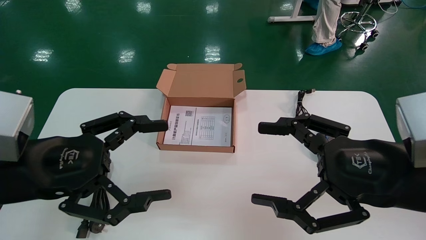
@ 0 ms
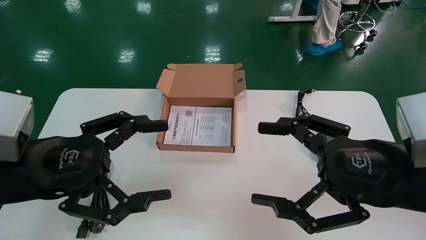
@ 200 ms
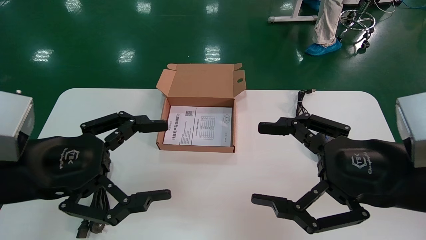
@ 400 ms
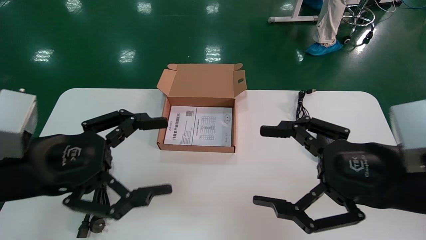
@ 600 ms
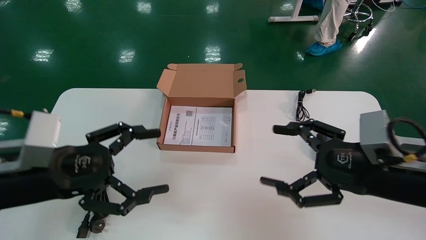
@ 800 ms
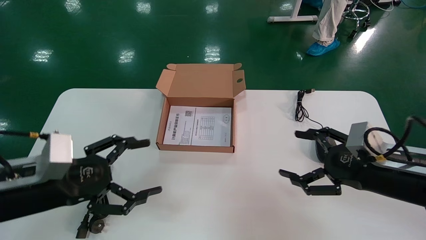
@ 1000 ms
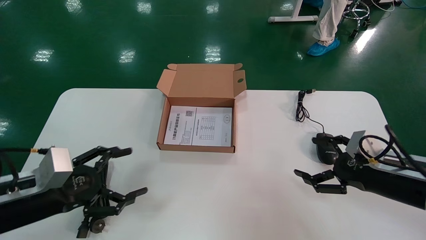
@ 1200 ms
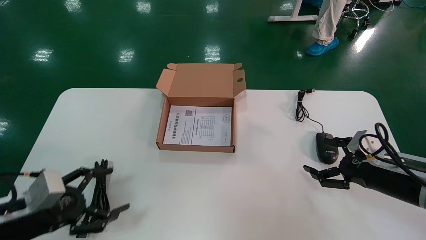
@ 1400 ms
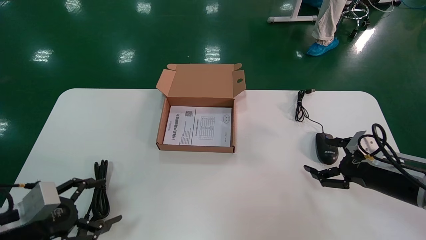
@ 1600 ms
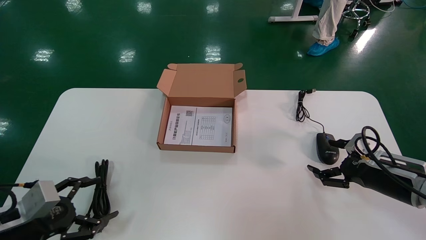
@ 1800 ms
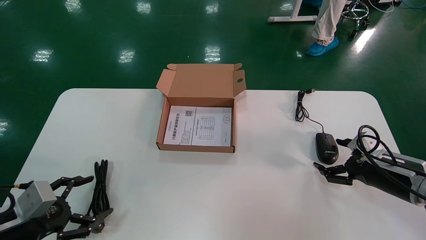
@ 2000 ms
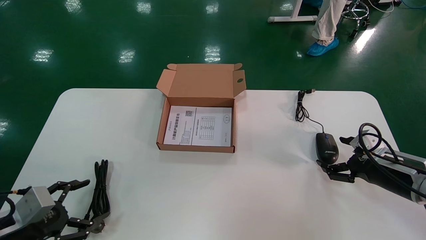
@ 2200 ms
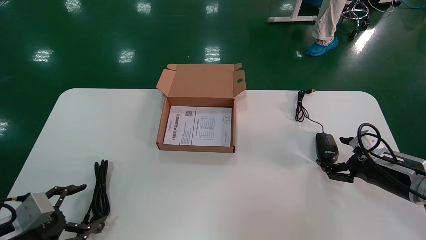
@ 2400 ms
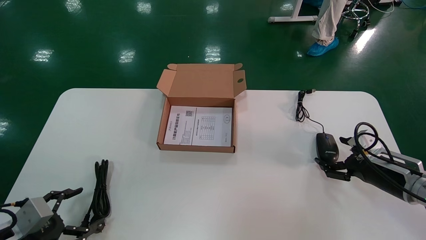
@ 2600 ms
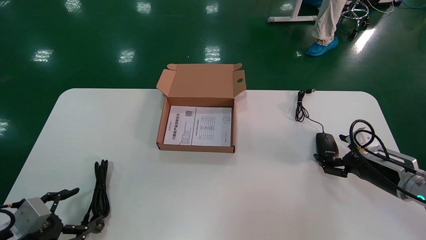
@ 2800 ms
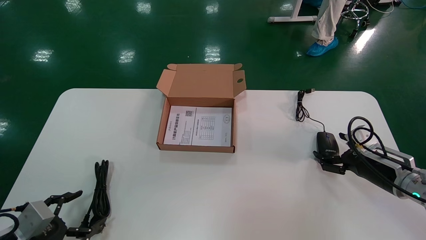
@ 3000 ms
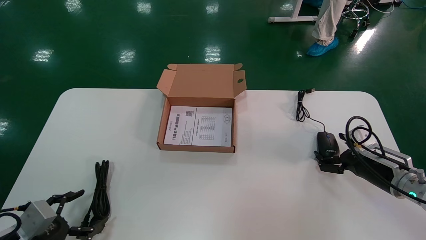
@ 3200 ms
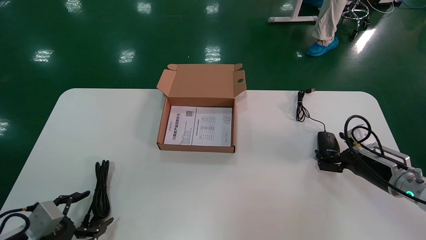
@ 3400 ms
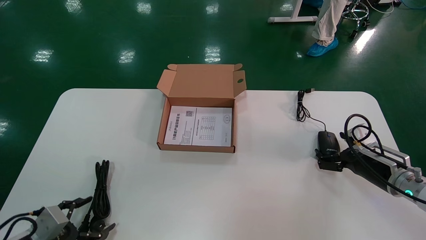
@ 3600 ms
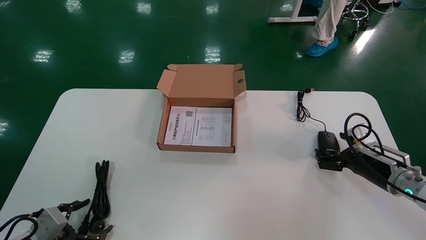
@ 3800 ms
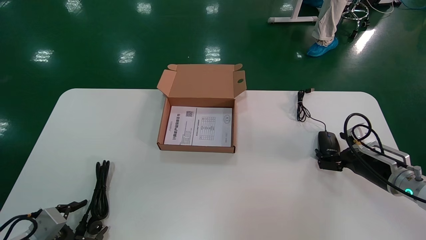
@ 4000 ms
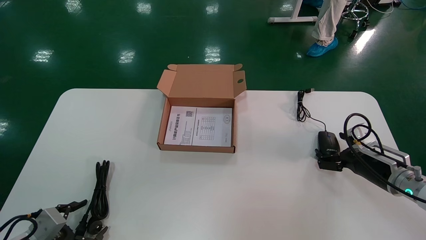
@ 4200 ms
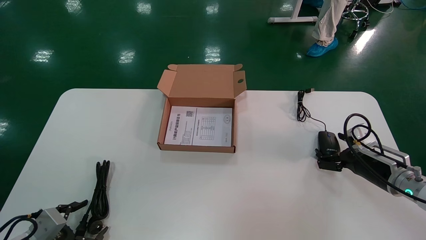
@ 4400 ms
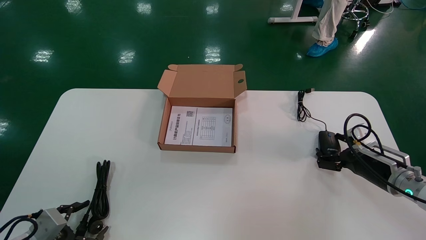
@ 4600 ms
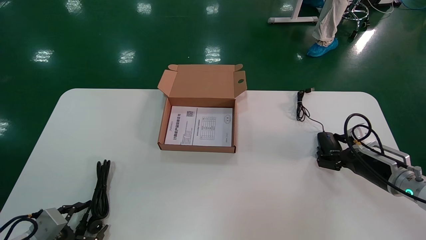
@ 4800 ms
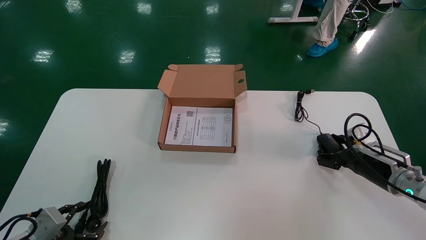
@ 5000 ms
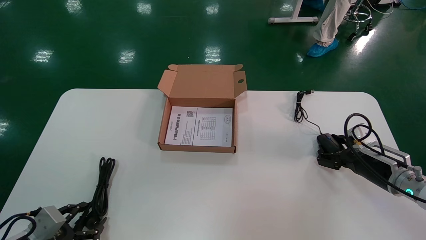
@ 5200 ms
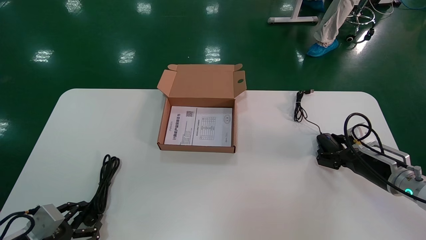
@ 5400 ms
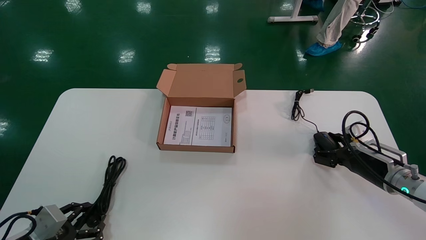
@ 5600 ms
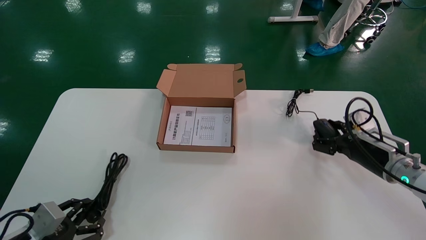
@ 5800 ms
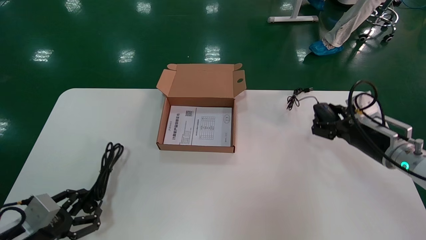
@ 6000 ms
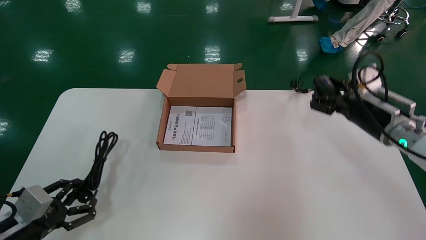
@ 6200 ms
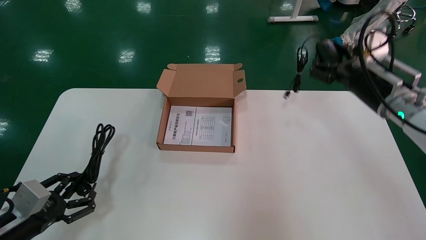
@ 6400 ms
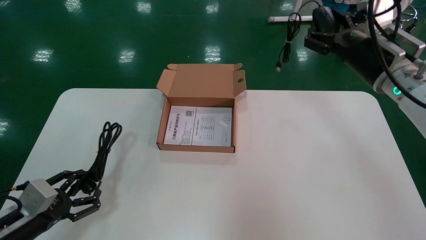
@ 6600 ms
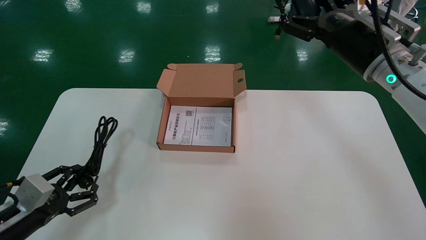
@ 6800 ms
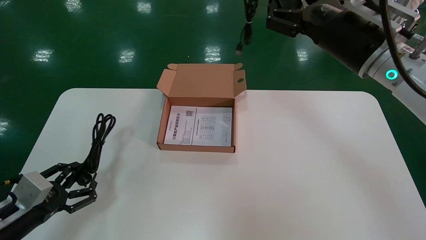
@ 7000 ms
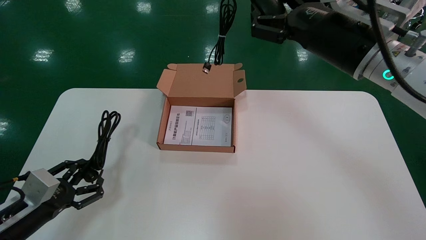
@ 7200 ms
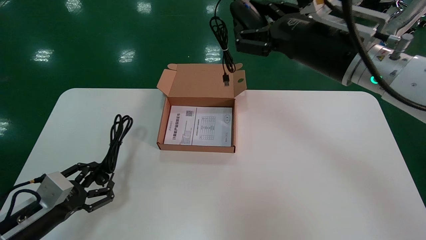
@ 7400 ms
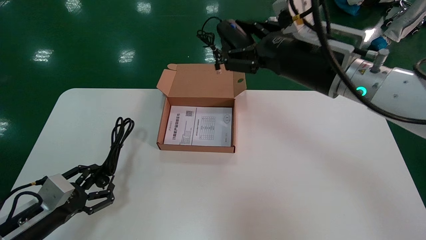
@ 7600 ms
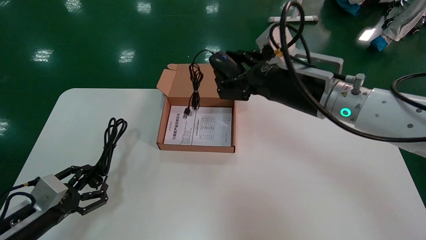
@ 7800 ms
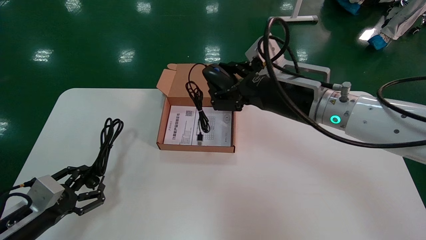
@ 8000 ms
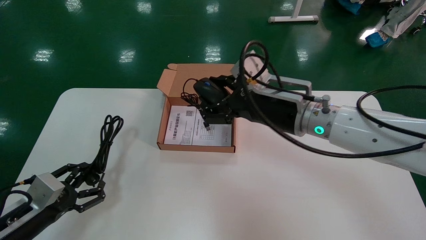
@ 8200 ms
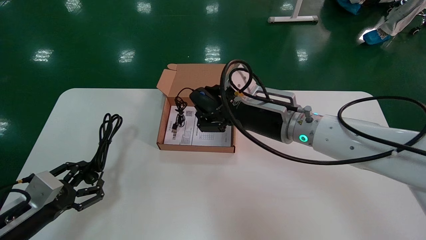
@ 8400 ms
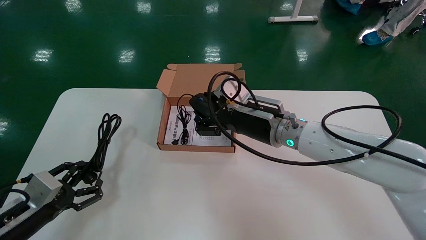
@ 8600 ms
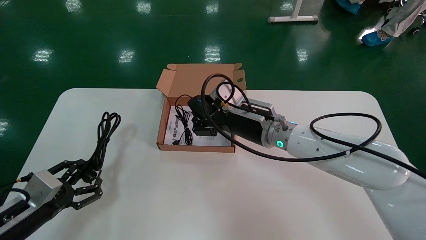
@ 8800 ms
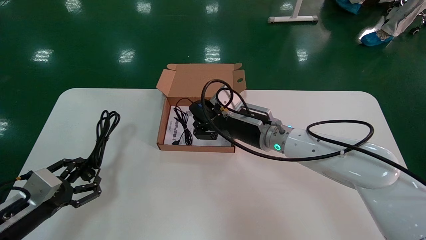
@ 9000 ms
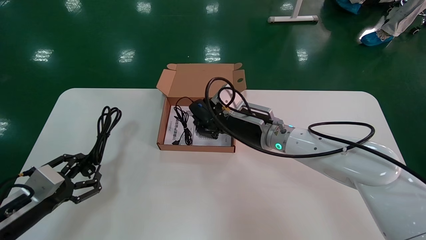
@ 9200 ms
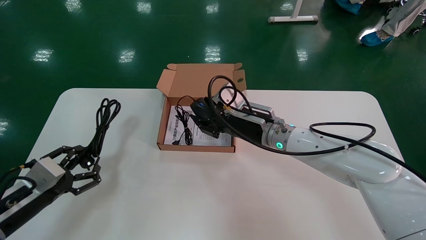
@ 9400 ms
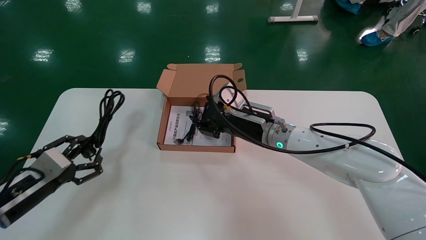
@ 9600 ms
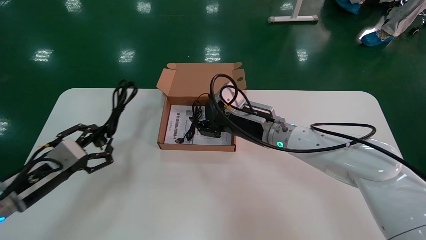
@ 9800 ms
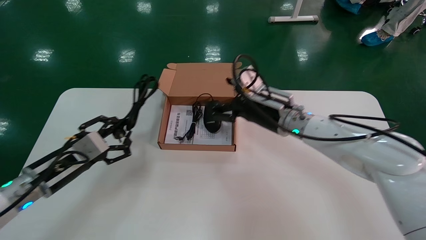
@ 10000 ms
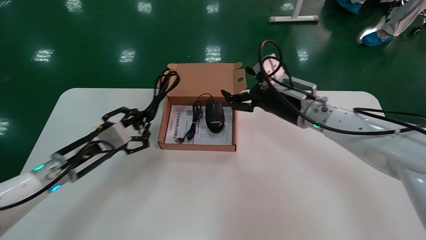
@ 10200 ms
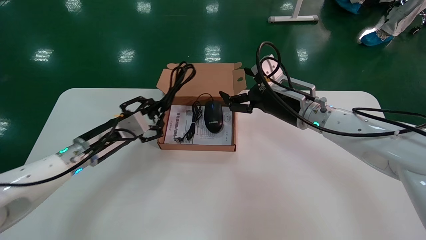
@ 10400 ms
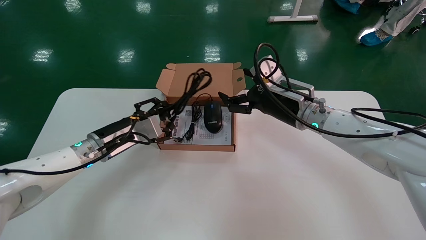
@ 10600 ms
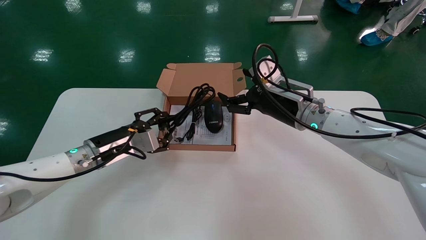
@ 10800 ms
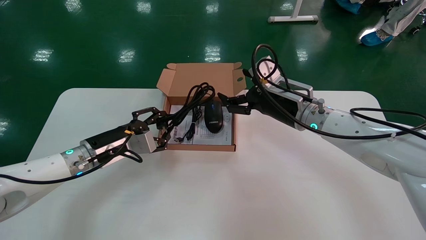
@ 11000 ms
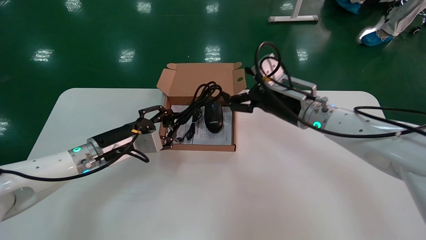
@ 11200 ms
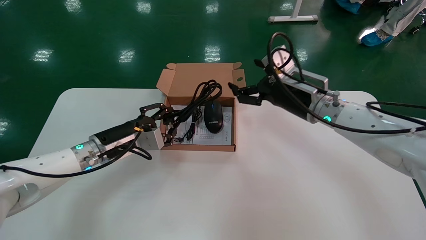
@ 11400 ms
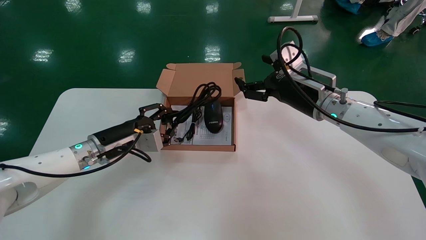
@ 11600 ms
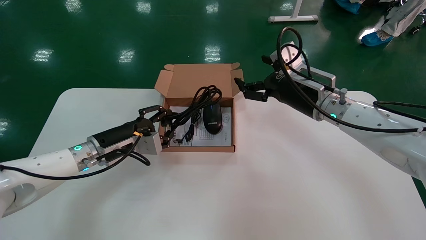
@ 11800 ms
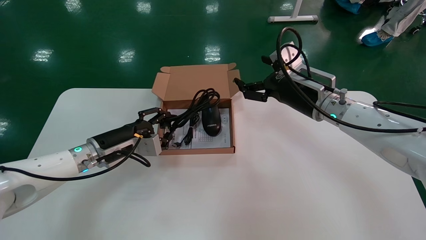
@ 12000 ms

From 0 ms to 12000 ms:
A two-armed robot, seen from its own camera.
Step, from 1000 ms to 5600 ms: Grab and pick up the mouse and power cord from the accessory packaging area.
From 0 ms to 1600 ms: The left gripper shifts approximately 20 cm downward and to the left, while the right gripper goes approximately 20 cm forward, downward and to the right.
From 1600 ms to 3000 ms: The left gripper goes some 5 cm downward.
From 3000 ms to 4400 ms: The grippers move only a little.
From 4400 ms to 6000 ms: The left gripper closes its fingers. Meanwhile the right gripper shifts some 10 cm upward, and closes up.
From 6000 ms to 7600 ms: The right gripper shifts approximately 25 cm to the left and upward.
From 7600 ms to 9000 ms: The right gripper heads downward, to the left and forward, covering about 15 cm.
From 9000 ms to 10400 ms: The right gripper travels to the right by some 5 cm, and opens, while the left gripper heads forward, to the right and upward, covering about 20 cm.

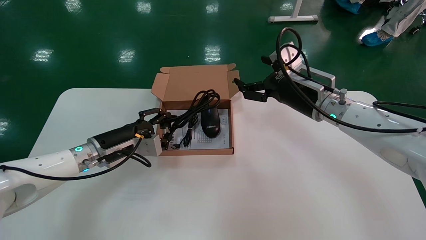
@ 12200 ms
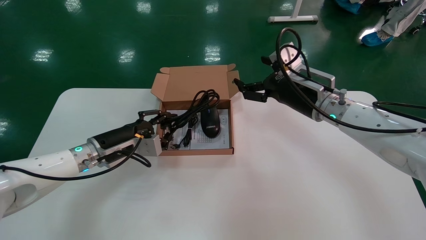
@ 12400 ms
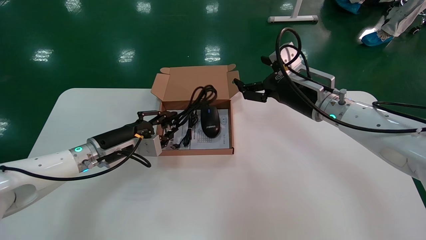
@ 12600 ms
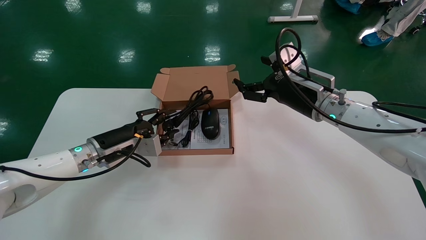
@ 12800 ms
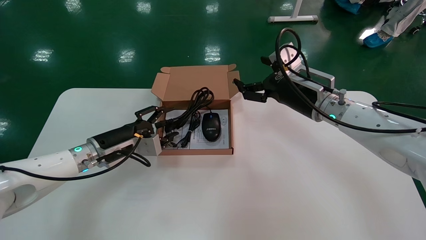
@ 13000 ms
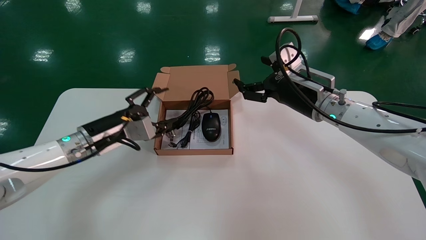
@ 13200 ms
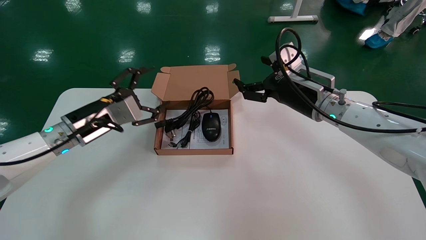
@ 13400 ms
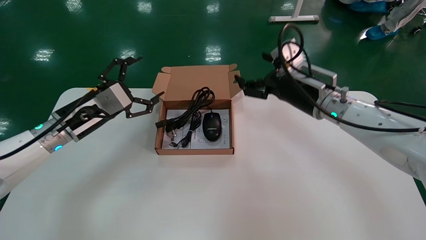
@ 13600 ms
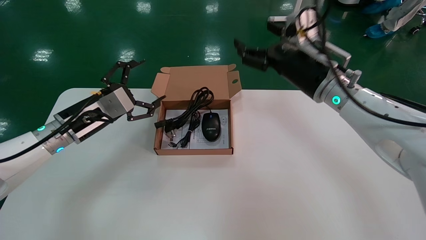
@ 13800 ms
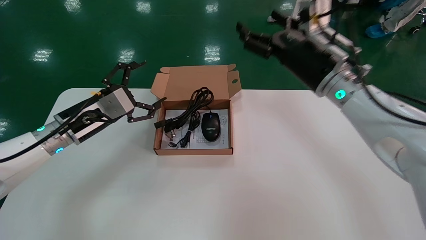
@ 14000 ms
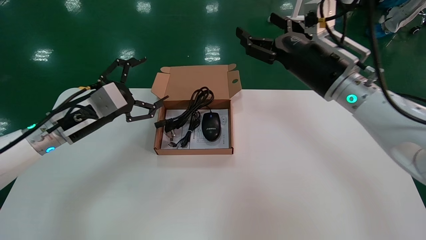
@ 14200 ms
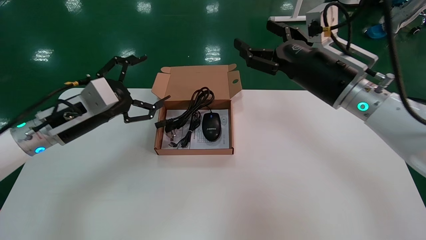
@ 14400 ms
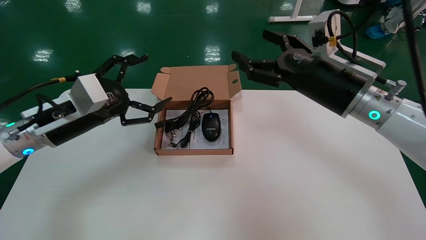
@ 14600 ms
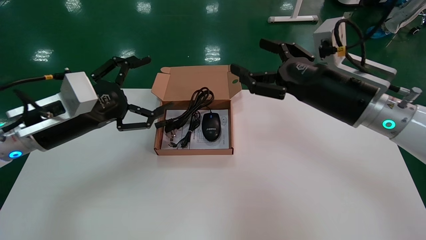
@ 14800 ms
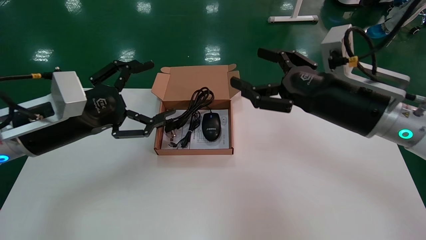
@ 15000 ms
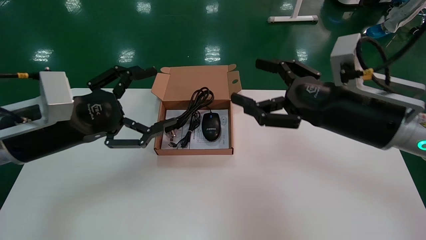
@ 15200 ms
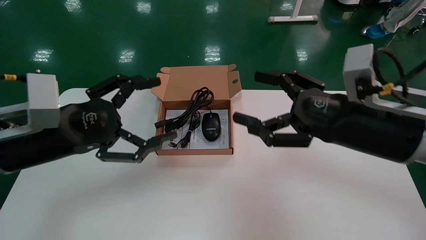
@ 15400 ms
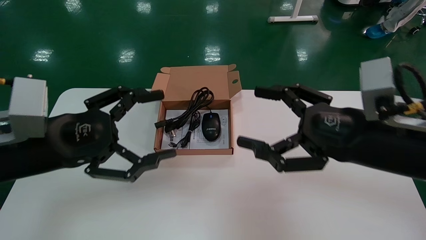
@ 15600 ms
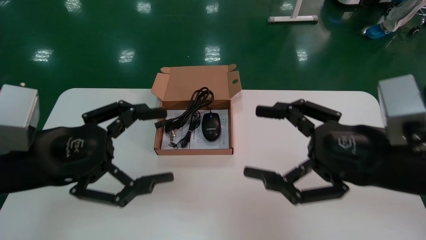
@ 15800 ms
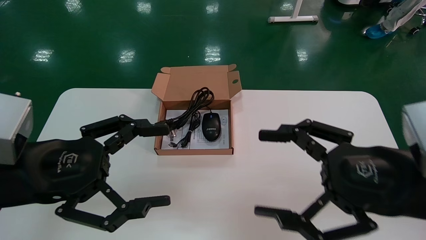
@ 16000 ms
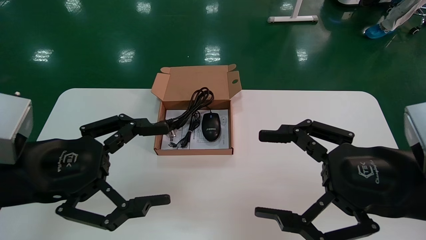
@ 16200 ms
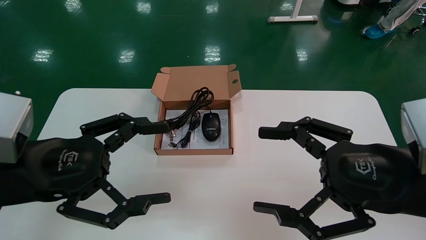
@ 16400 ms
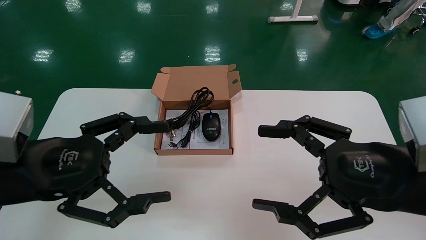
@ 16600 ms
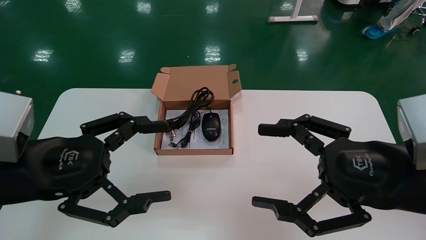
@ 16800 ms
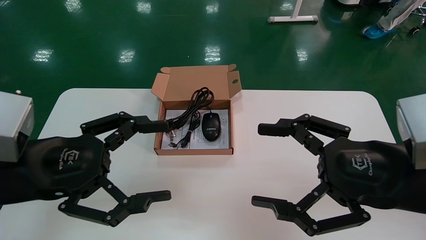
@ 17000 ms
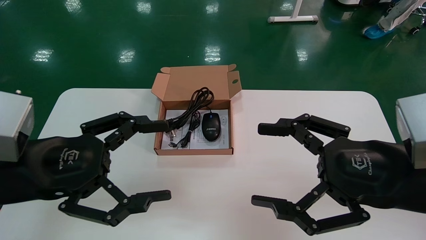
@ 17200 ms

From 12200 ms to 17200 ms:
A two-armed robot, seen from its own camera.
From 12200 ms to 13800 ms: The left gripper moves upward, some 5 cm, and opens up.
From 13800 ms to 15600 ms: The two grippers go approximately 15 cm backward.
From 15600 ms to 17200 ms: The right gripper ends up roughly 5 cm from where it was.
